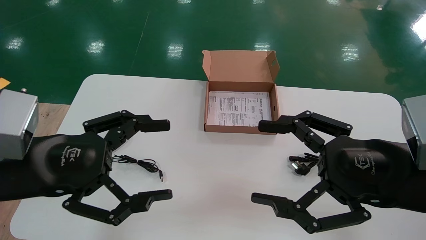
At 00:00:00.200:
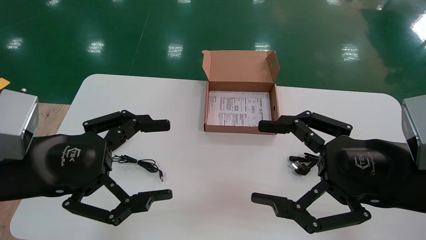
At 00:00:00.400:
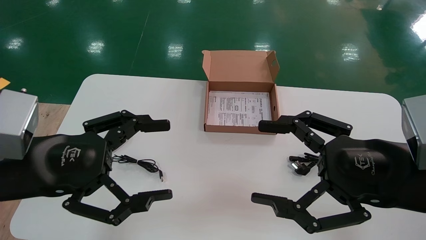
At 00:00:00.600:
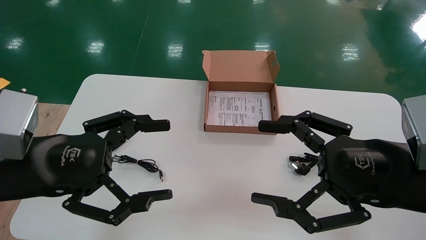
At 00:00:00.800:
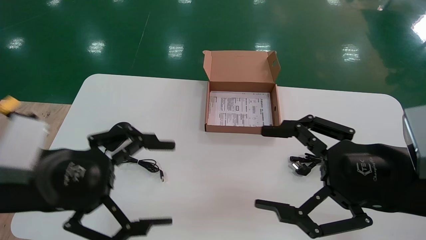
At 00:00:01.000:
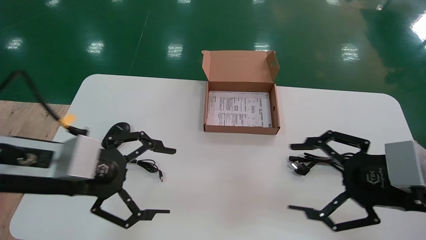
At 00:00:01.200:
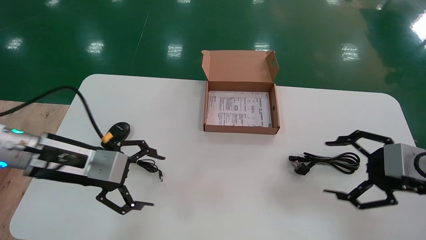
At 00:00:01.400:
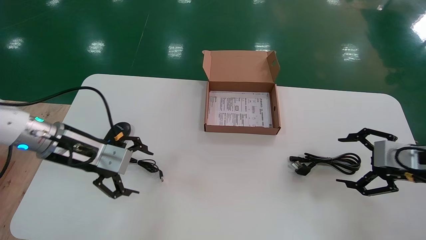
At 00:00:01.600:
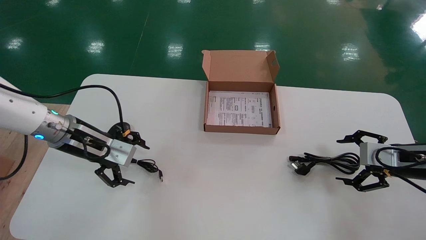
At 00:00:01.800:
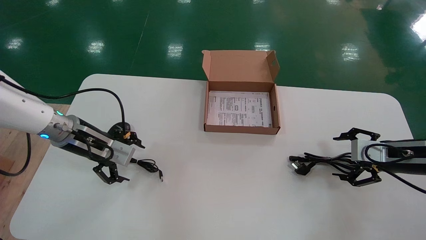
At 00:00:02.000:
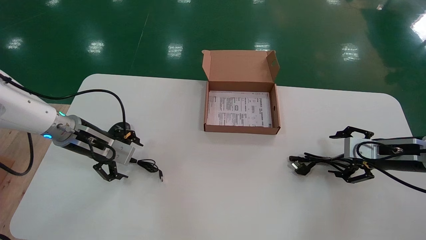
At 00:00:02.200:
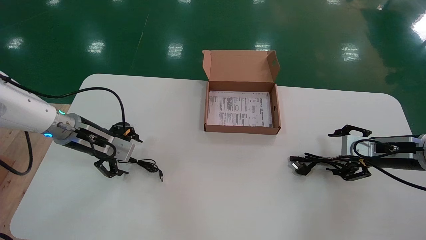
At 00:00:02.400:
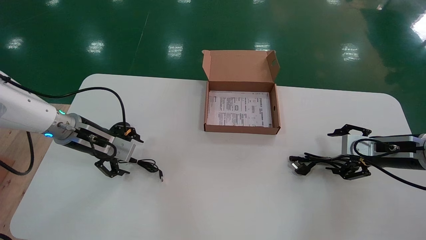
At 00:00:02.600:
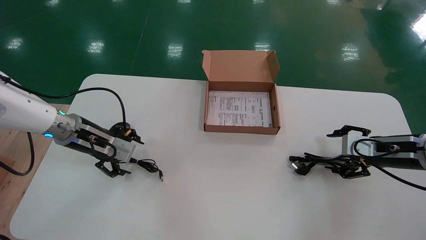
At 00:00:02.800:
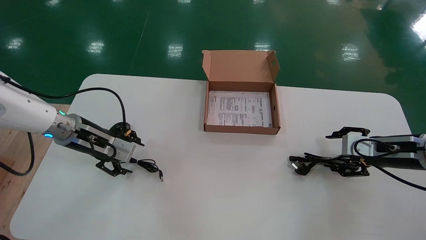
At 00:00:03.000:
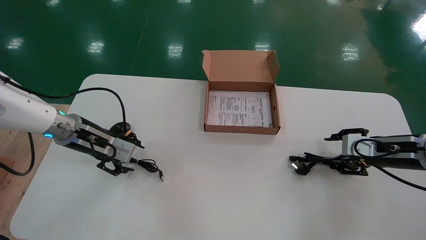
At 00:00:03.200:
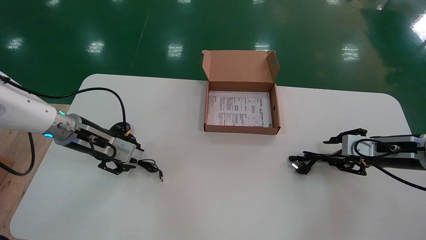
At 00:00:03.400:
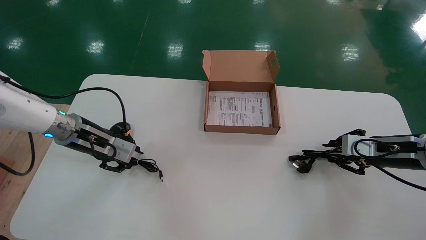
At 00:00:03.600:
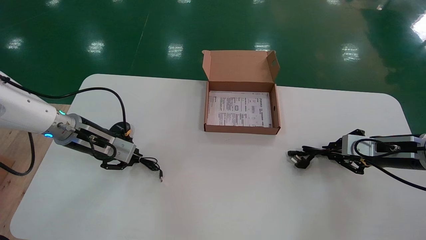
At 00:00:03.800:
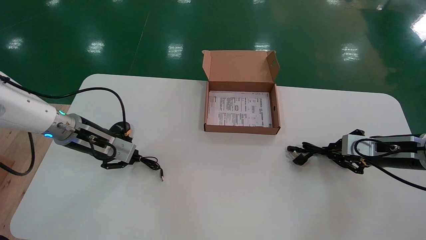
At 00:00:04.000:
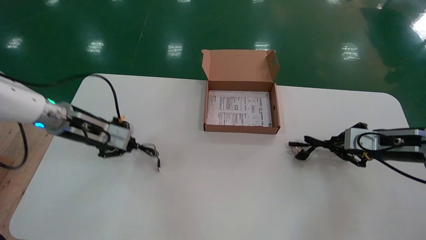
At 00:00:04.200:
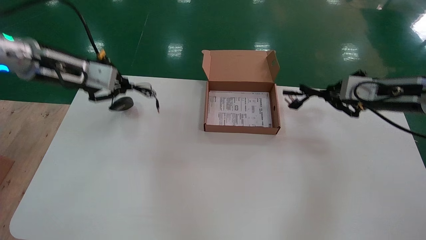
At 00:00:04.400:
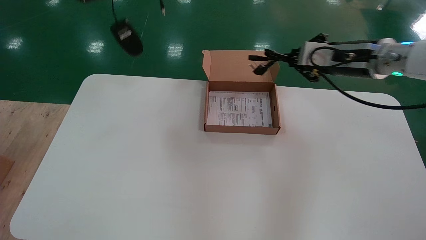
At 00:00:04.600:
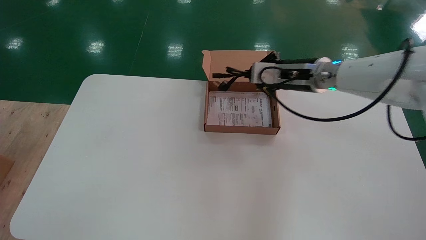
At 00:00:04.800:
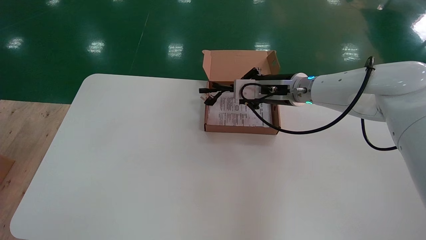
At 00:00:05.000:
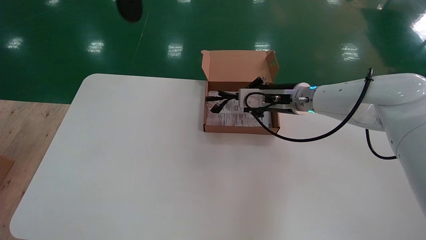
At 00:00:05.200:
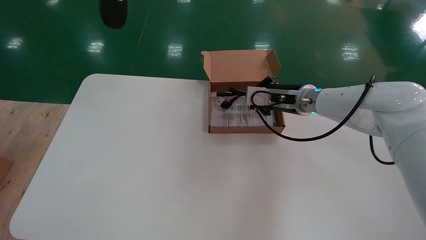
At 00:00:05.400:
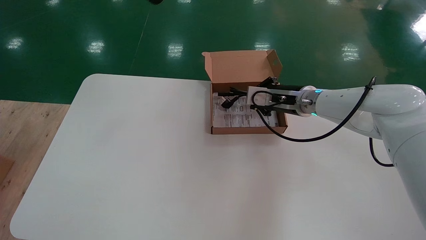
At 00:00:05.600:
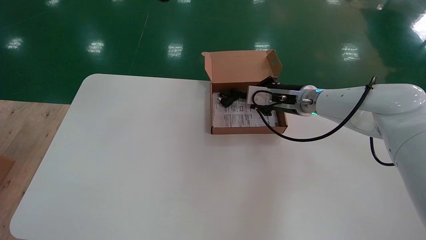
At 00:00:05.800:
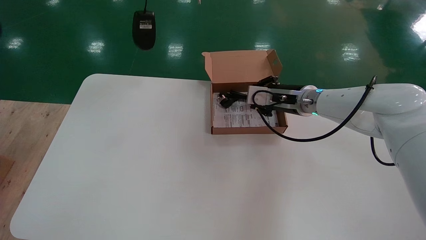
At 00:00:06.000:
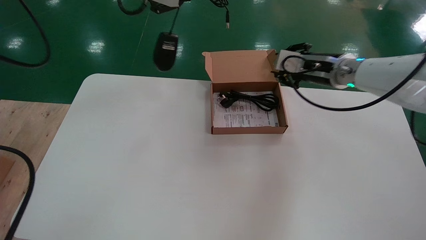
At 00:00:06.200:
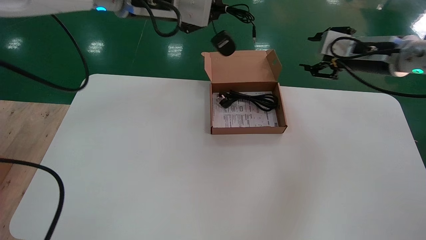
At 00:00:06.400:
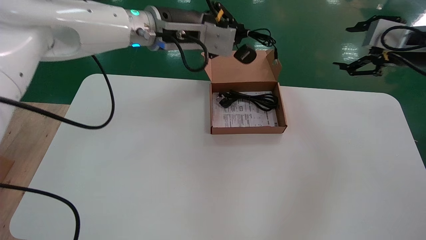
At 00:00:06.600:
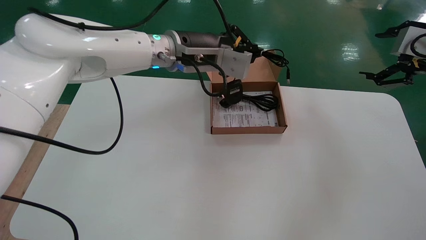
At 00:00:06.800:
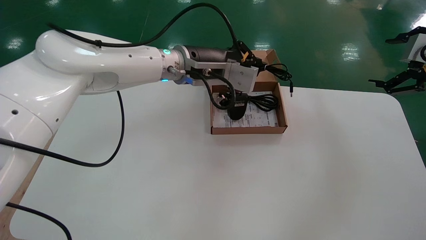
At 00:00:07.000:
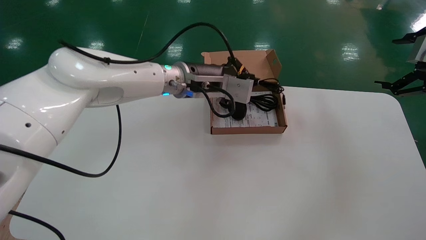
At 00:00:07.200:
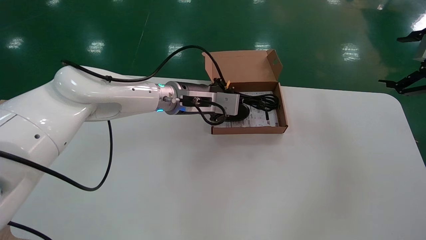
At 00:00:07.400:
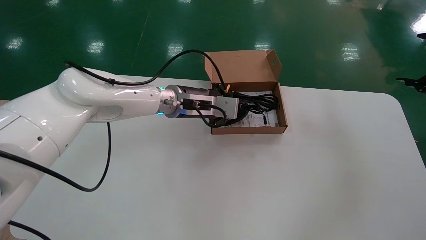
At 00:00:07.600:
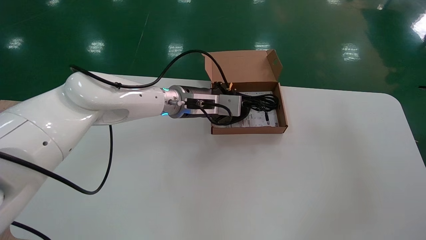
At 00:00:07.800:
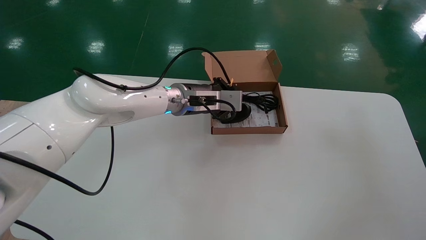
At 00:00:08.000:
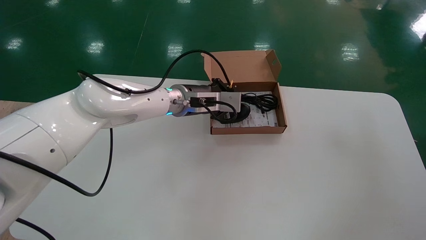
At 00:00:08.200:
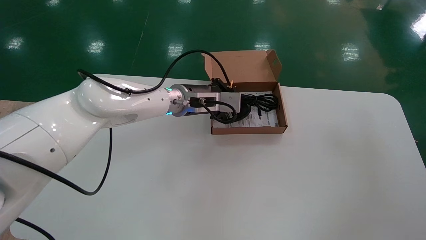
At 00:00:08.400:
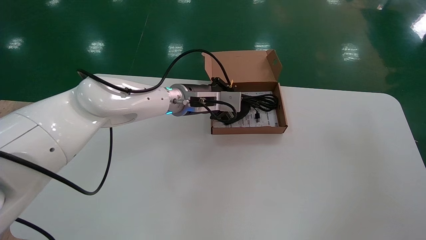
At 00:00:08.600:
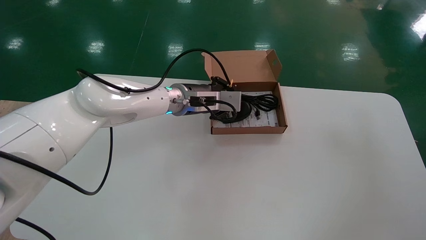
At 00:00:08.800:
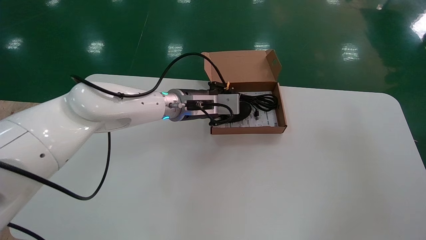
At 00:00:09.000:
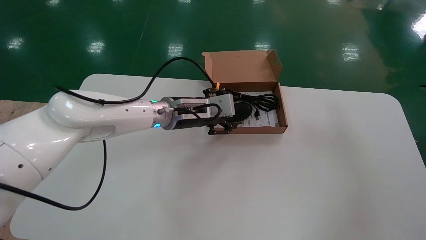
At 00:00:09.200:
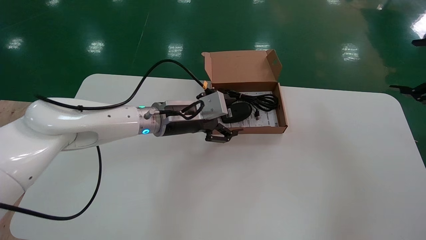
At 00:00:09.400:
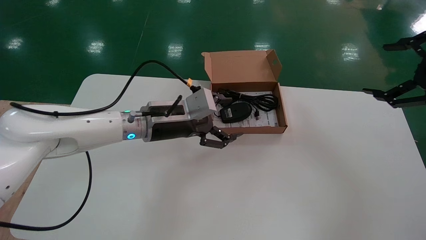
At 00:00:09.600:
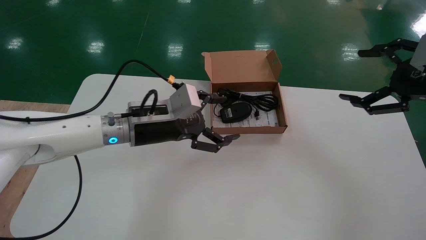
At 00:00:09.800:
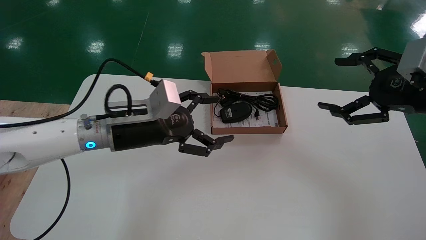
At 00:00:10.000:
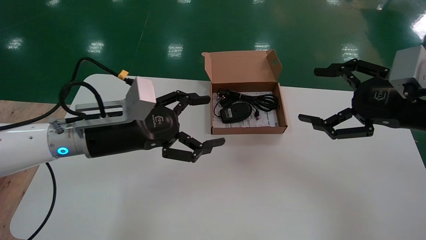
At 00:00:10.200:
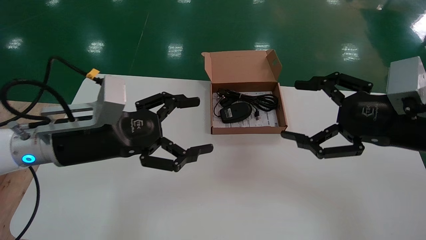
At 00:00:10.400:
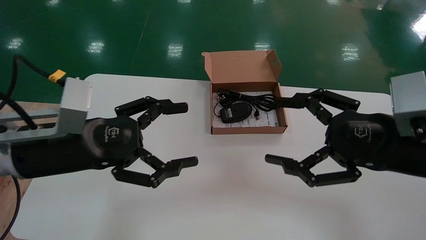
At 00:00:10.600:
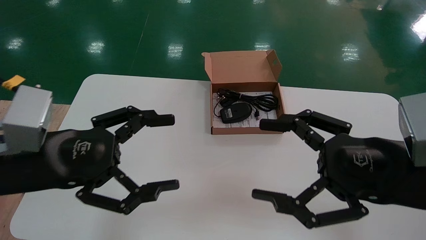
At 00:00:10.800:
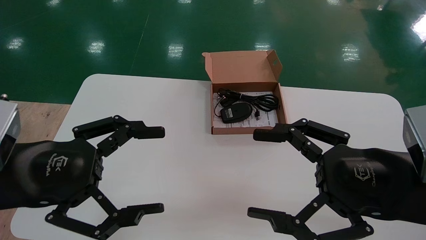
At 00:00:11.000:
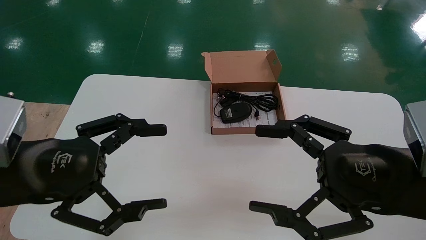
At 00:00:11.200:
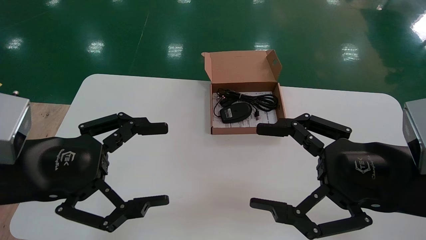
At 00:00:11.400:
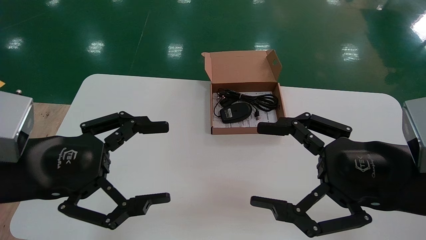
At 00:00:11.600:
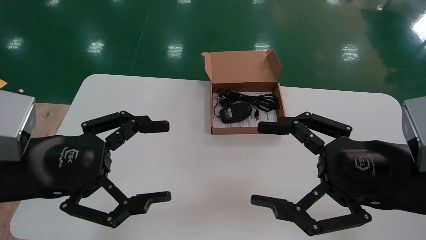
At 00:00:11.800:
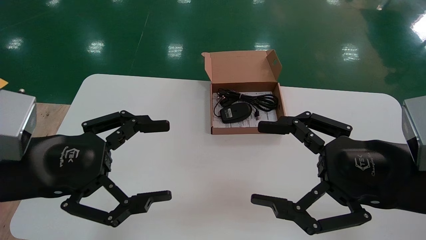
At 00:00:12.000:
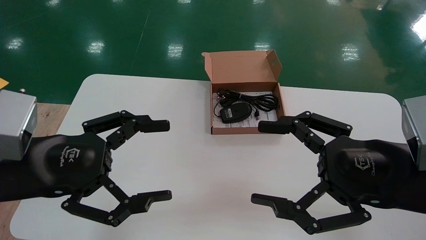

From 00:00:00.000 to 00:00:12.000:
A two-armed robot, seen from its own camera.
Step, from 00:00:00.800 to 00:00:03.600: Simultaneously pick up the mouse and power cord from the accessory packaging area.
Step, from 00:00:03.800 to 00:00:09.000: Place the mouse and power cord into the box.
From 00:00:00.000 to 00:00:01.600: The left gripper moves forward, approximately 20 cm. Meanwhile the right gripper is displaced to the right, forward and downward by about 20 cm.
From 00:00:01.600 to 00:00:03.000: There are only small adjustments of the grippers.
From 00:00:03.000 to 00:00:04.400: The right gripper moves upward, to the left and forward, roughly 20 cm, and closes; the left gripper heads upward, covering about 30 cm, and closes up.
From 00:00:04.400 to 00:00:06.000: The left gripper shifts approximately 10 cm to the right, while the right gripper reaches some 10 cm to the left, then returns.
From 00:00:06.000 to 00:00:07.600: The left gripper goes about 25 cm downward and to the right; the right gripper travels to the right and backward by some 30 cm, and opens its fingers.
From 00:00:07.600 to 00:00:09.000: The left gripper opens its fingers.
From 00:00:09.000 to 00:00:10.400: The right gripper travels to the left and downward by about 25 cm, while the left gripper travels backward and to the left by roughly 25 cm, and opens its fingers.
From 00:00:10.400 to 00:00:12.000: The left gripper shifts by about 5 cm.

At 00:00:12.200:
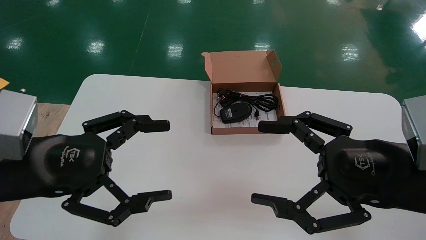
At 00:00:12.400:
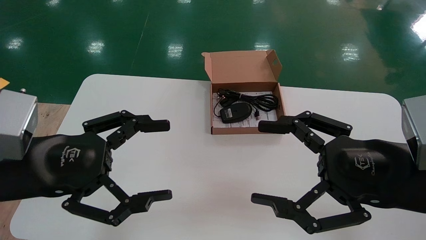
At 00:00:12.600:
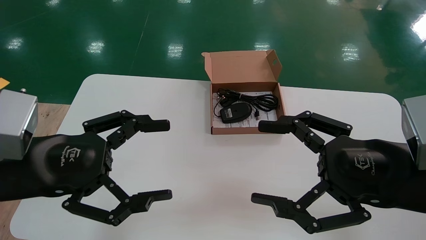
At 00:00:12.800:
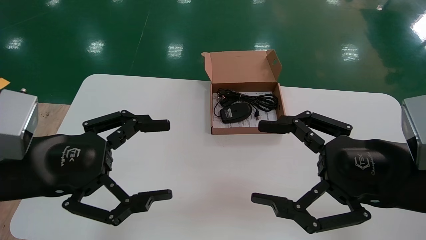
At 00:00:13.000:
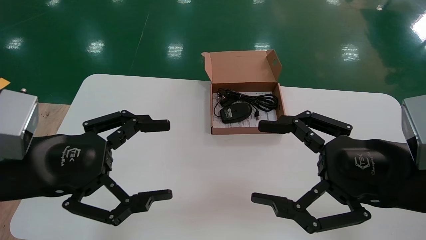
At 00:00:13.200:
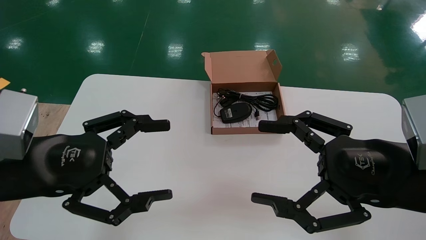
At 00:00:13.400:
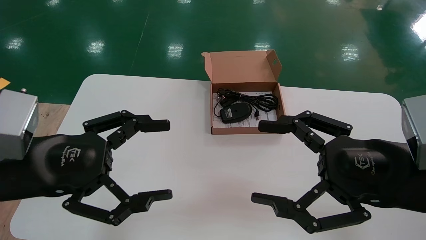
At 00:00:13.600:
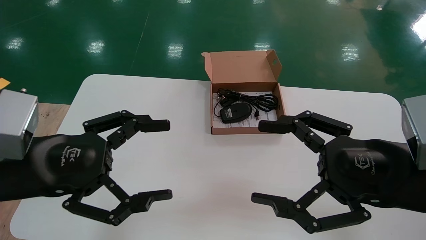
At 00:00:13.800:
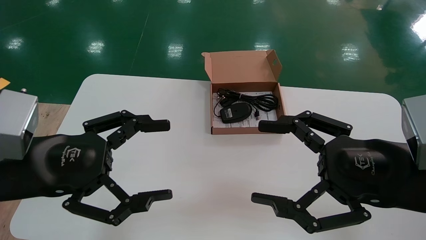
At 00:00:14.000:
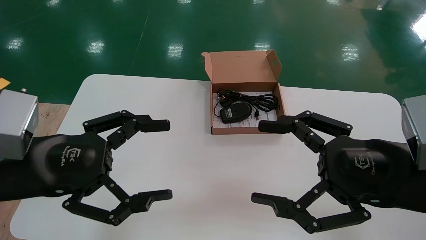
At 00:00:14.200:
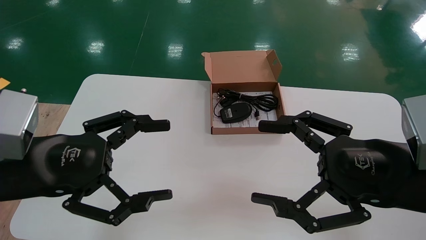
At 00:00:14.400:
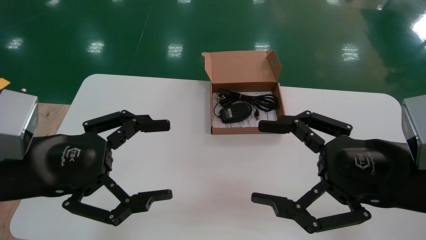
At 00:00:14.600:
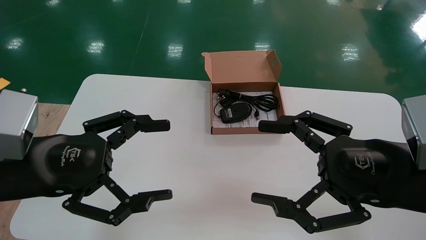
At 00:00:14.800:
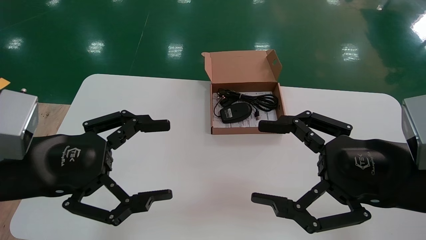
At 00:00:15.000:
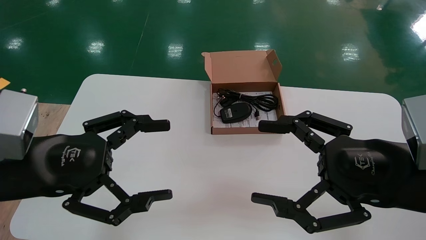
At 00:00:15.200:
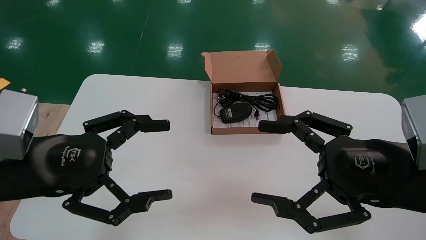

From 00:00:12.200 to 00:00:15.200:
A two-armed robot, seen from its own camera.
From 00:00:12.200 to 00:00:15.200: Both grippers stay put.
